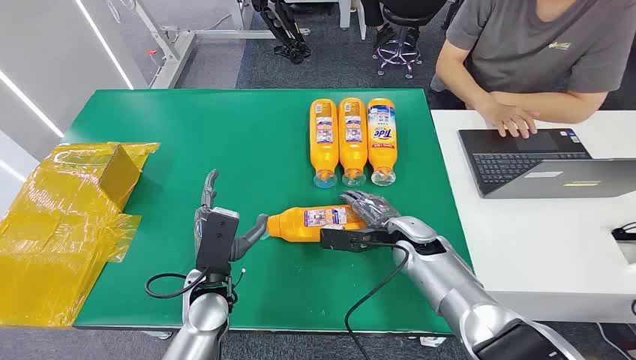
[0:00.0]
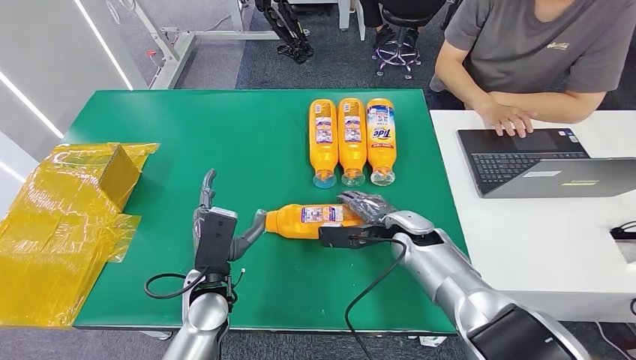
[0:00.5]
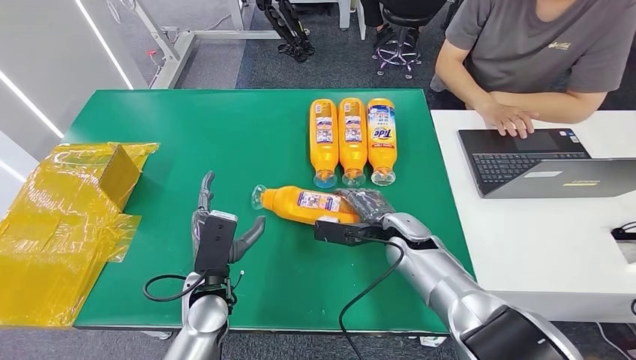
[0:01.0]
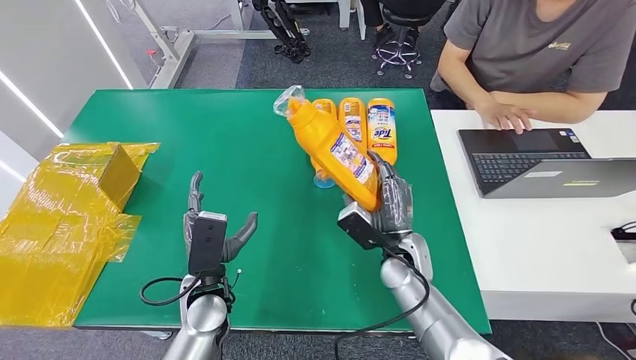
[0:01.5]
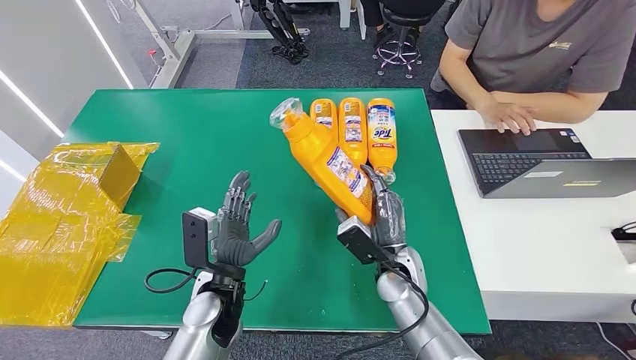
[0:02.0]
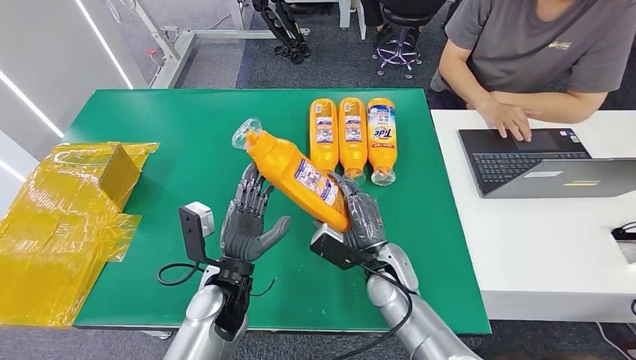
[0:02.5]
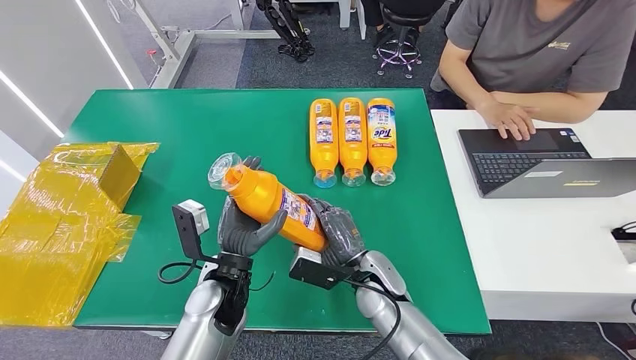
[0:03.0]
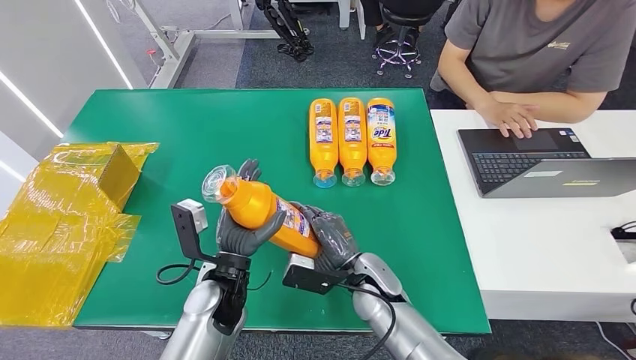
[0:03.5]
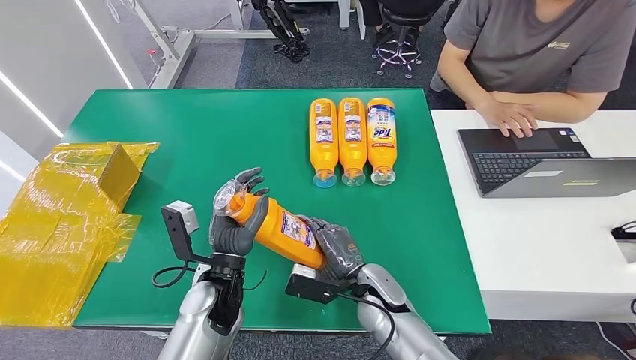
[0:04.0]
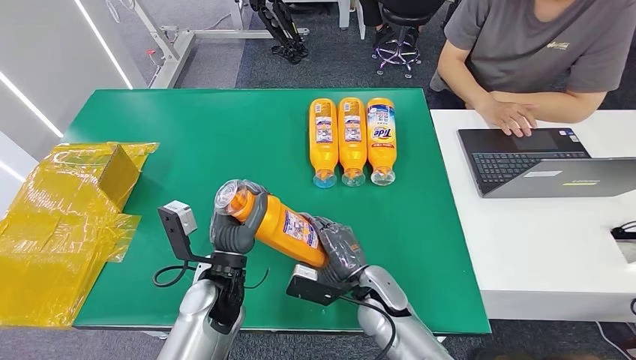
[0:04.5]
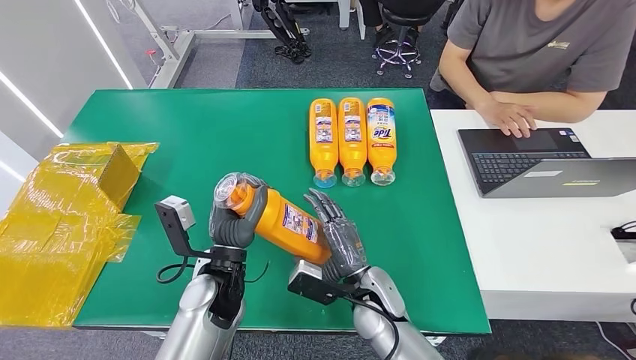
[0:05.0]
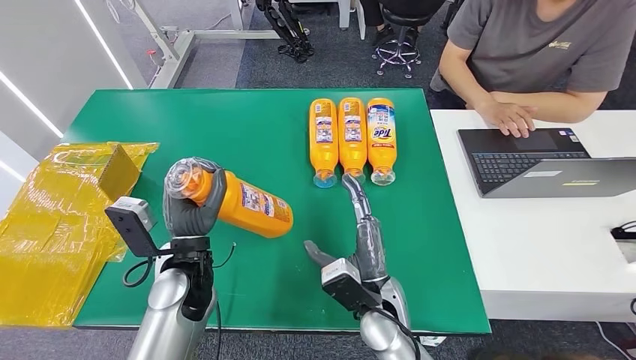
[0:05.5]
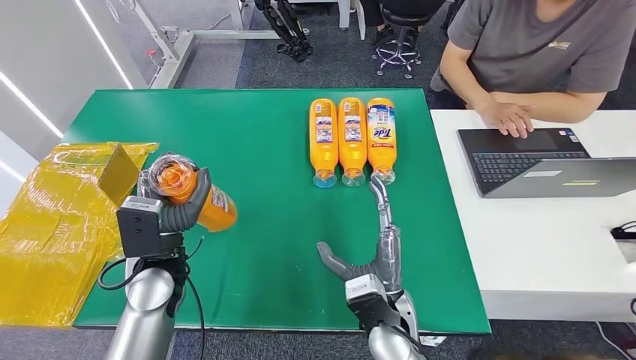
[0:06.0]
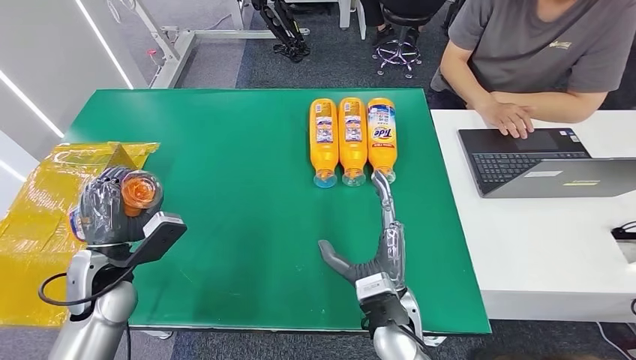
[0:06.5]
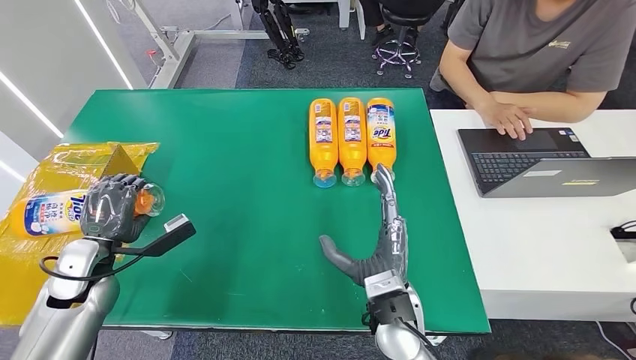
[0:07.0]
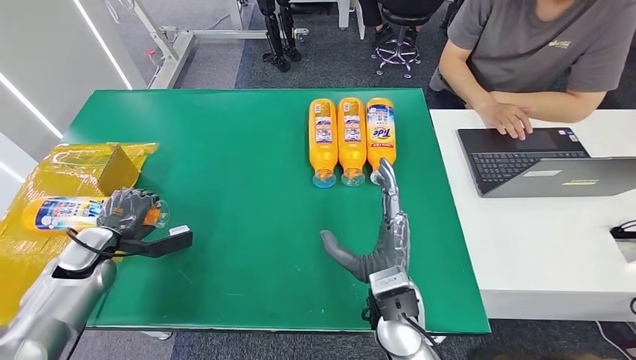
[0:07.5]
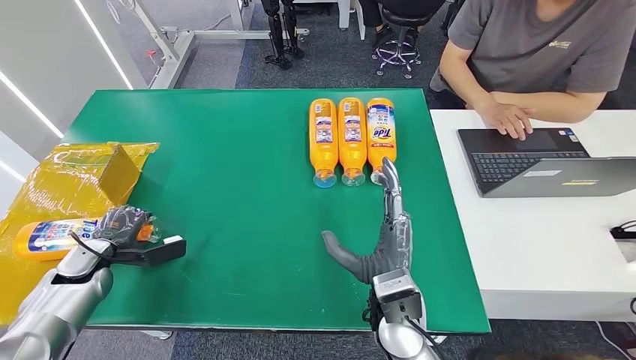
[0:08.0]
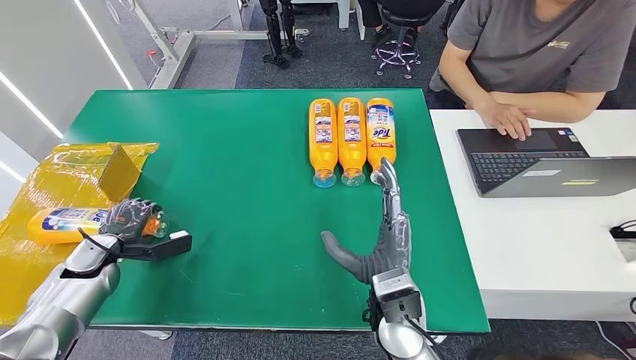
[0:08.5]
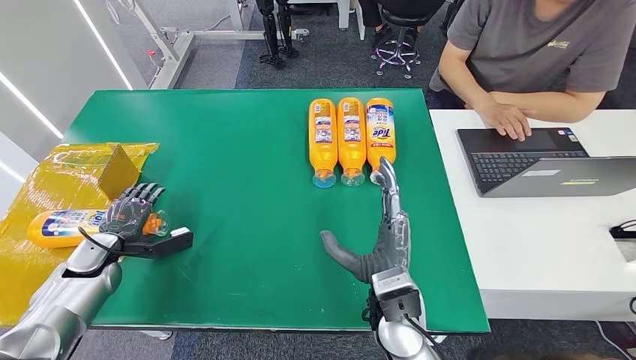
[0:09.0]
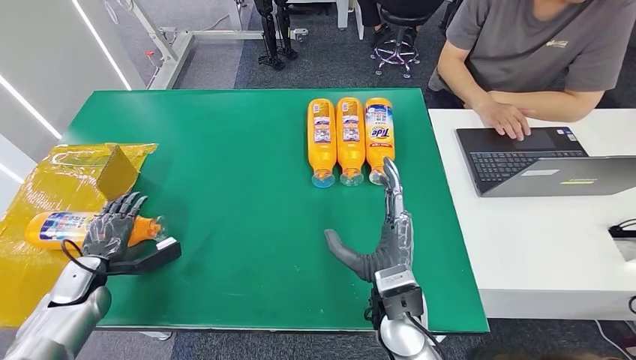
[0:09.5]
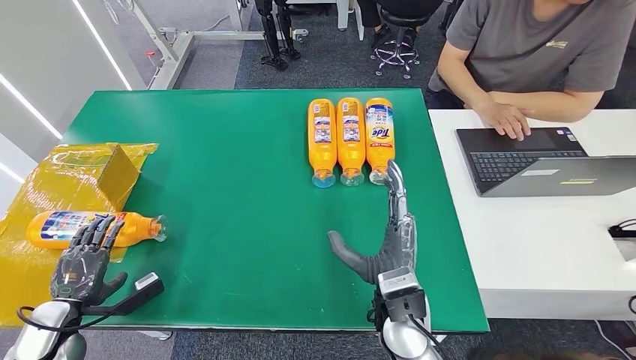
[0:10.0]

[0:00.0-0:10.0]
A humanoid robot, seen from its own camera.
Step, 0:00.0 to 0:01.5: Pick up the bottle from the table.
Step, 0:02.5 to 0:10.0: Turn the bottle to the front side.
0:02.0 to 0:04.0: The right hand changes place by about 5 cm.
0:04.0 to 0:06.0: The right hand shifts approximately 10 cm backward and upward; the left hand is displaced to the left by some 10 cm.
0:06.0 to 0:08.0: The left hand shifts roughly 25 cm to the left and downward.
0:08.0 to 0:10.0: The left hand goes some 10 cm backward.

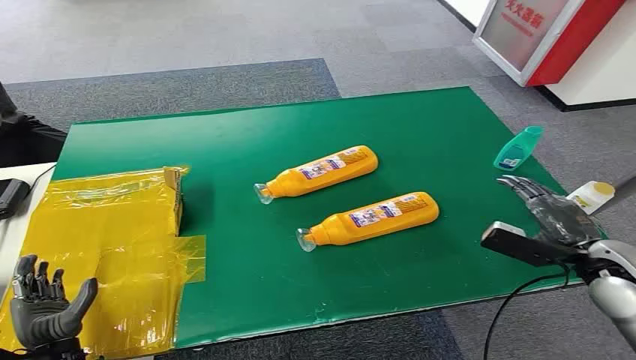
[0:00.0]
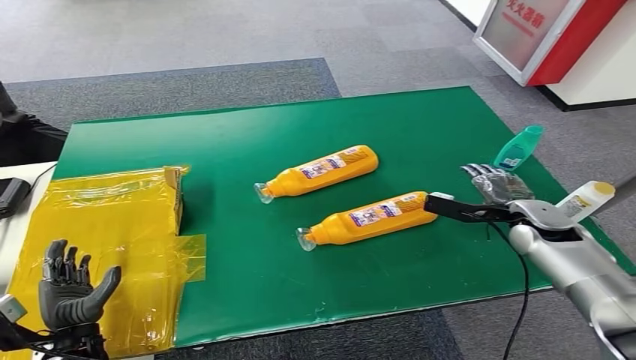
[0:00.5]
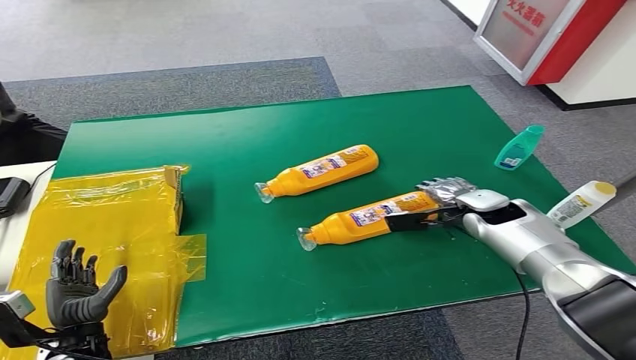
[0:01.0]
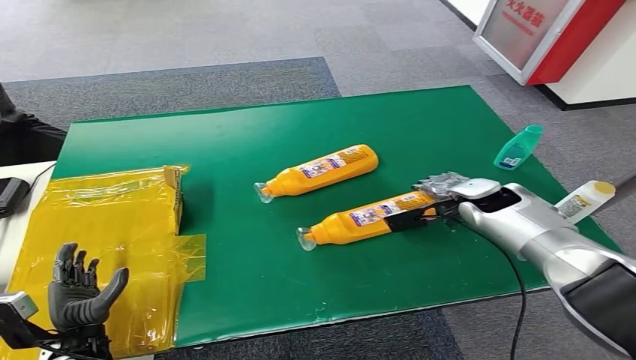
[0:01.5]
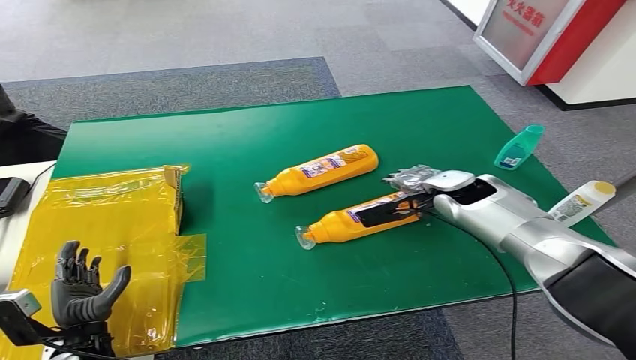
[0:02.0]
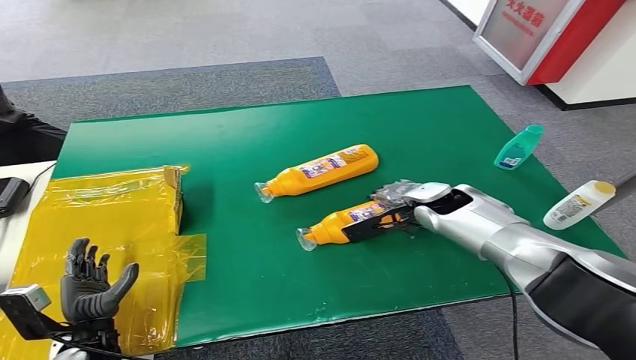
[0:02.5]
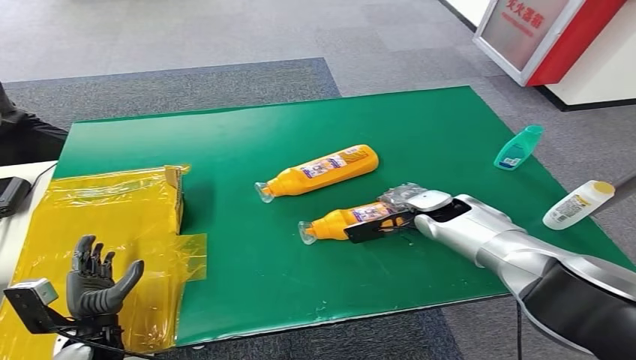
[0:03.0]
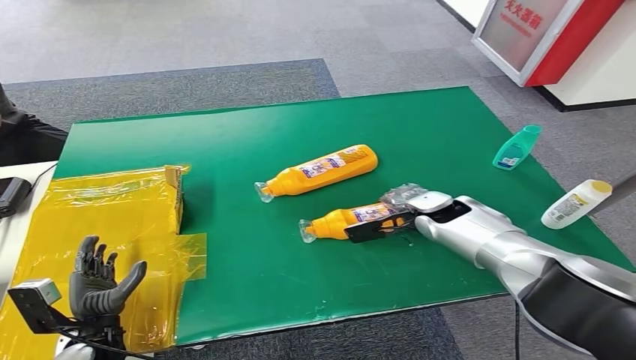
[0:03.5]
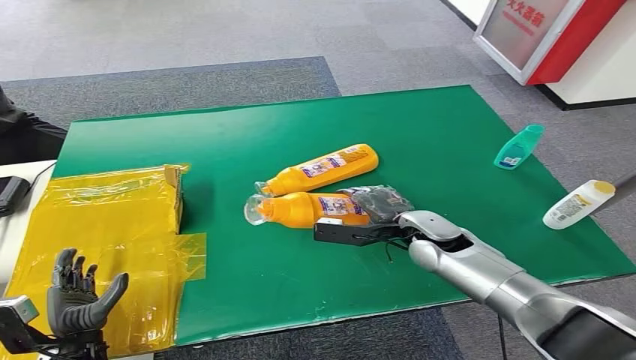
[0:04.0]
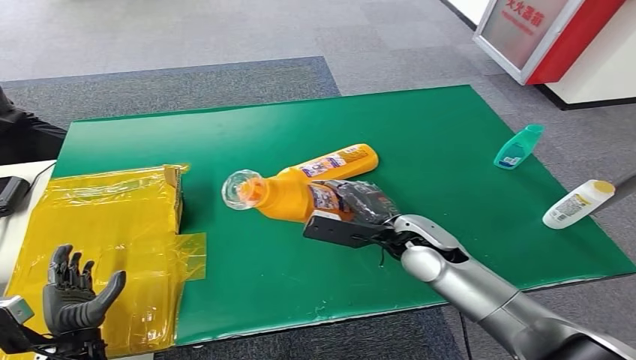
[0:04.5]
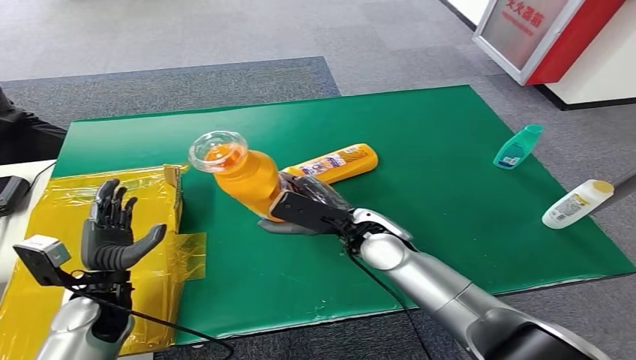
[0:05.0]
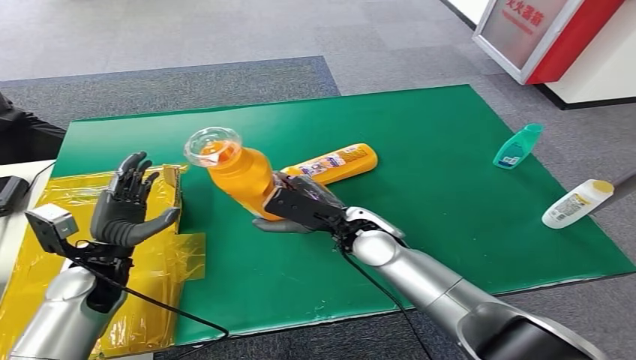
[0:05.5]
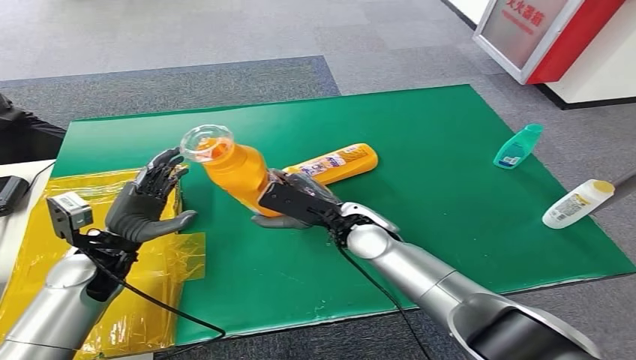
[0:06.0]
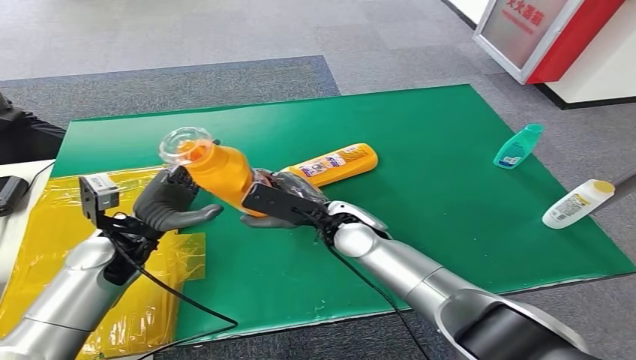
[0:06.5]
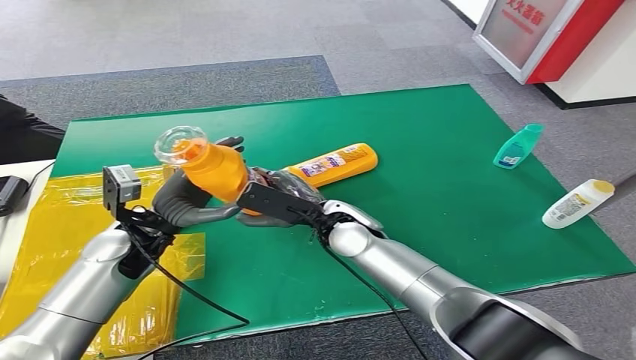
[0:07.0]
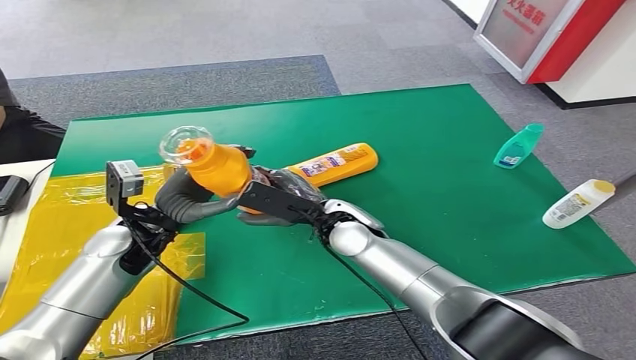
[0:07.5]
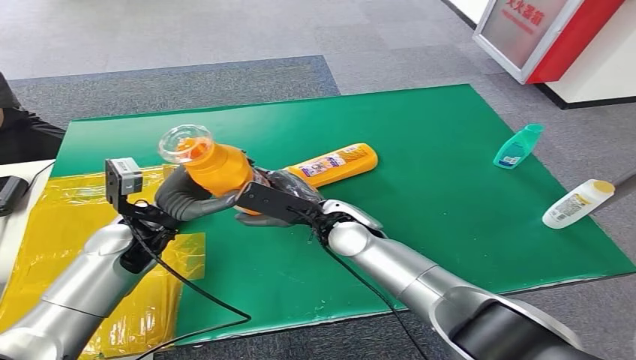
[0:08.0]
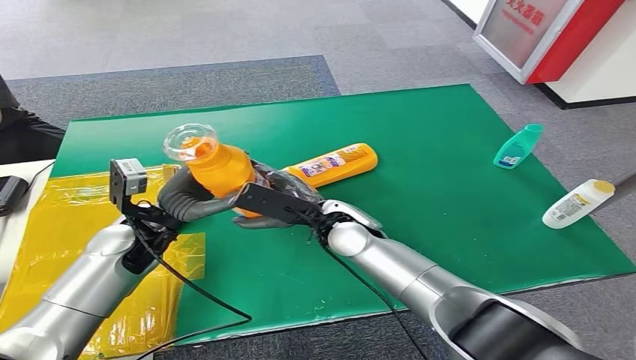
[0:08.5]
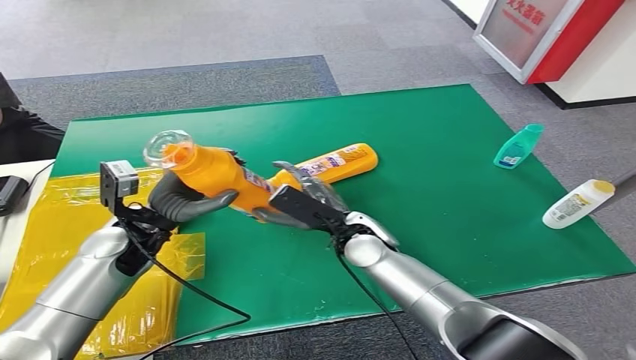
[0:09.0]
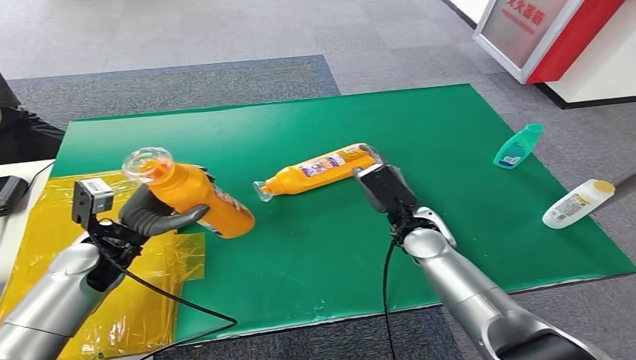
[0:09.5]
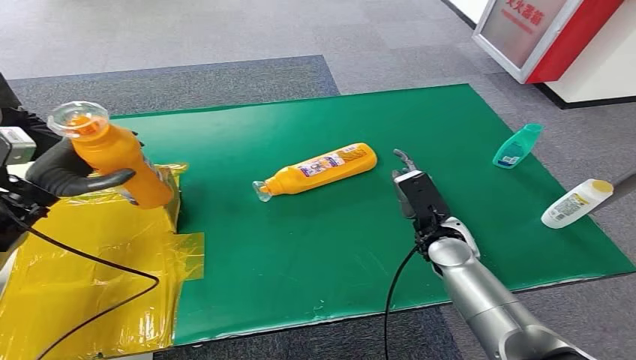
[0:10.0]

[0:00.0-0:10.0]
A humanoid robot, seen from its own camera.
Step, 0:00.0 to 0:06.0: Pick up the bottle from the table.
0:02.0 to 0:04.0: The right hand heads backward, to the left and downward, covering some 10 cm.
0:06.0 to 0:08.0: The left hand goes about 5 cm to the right.
